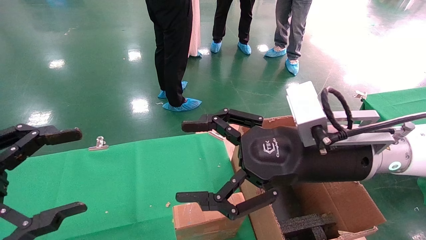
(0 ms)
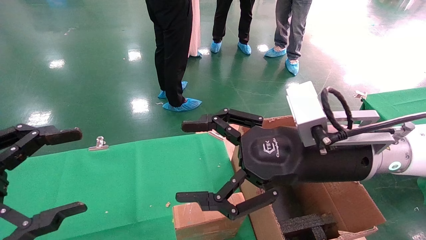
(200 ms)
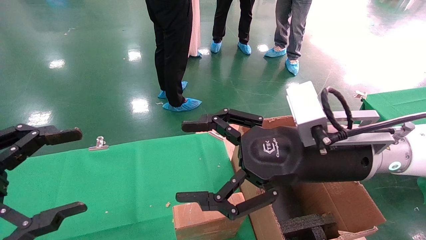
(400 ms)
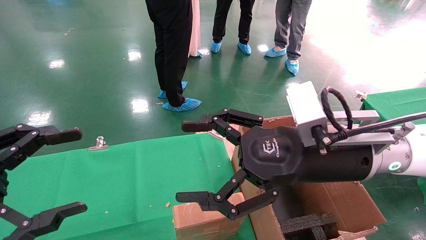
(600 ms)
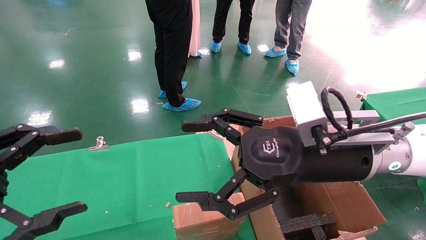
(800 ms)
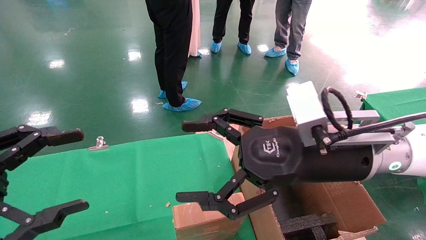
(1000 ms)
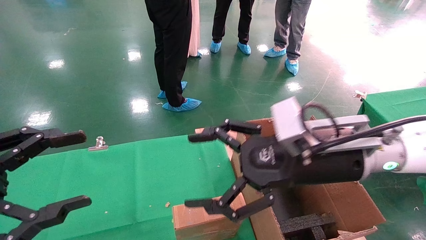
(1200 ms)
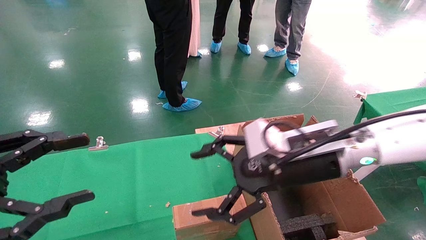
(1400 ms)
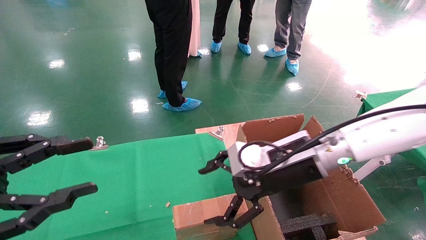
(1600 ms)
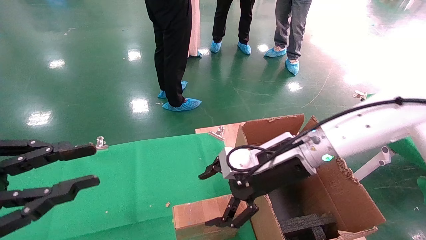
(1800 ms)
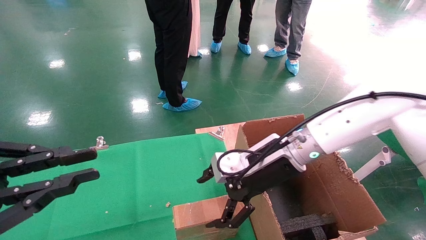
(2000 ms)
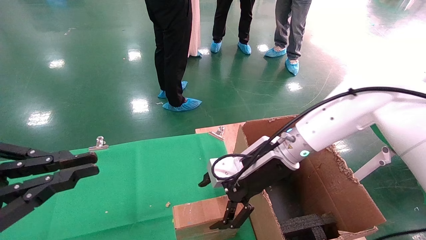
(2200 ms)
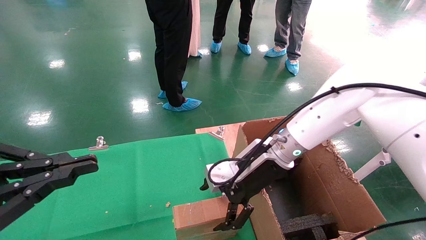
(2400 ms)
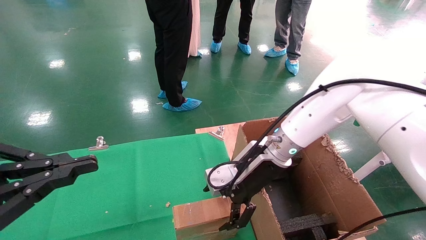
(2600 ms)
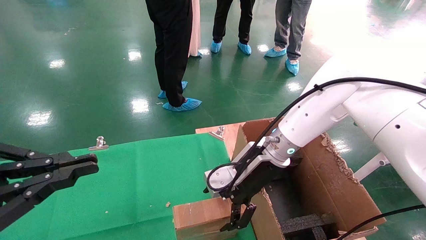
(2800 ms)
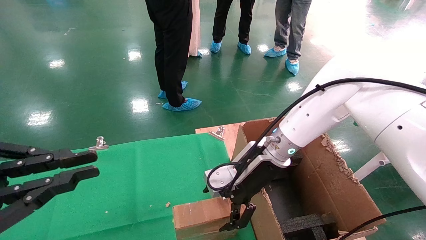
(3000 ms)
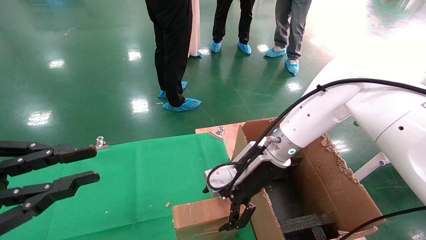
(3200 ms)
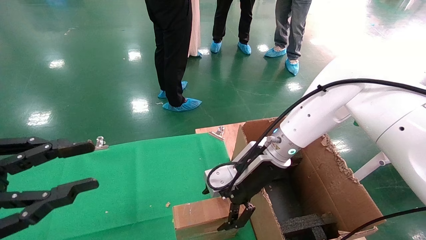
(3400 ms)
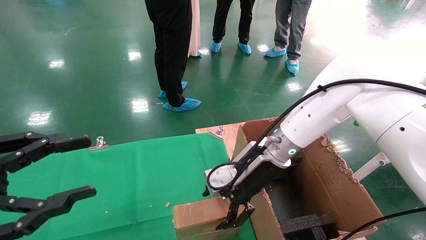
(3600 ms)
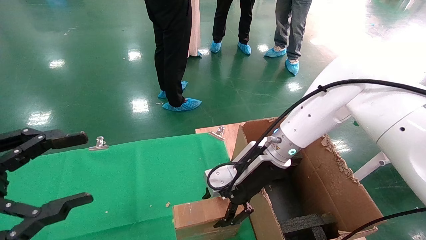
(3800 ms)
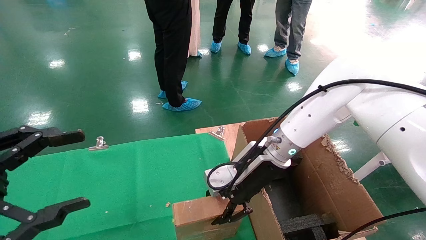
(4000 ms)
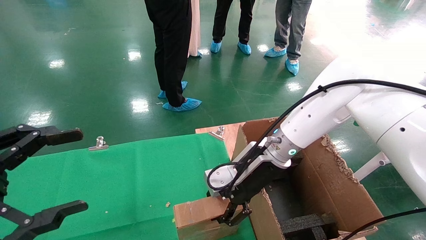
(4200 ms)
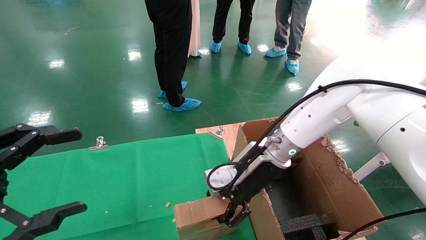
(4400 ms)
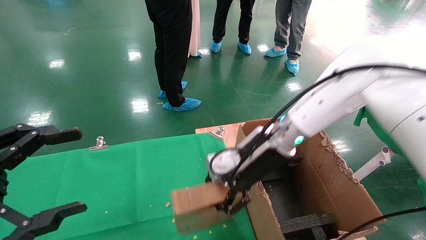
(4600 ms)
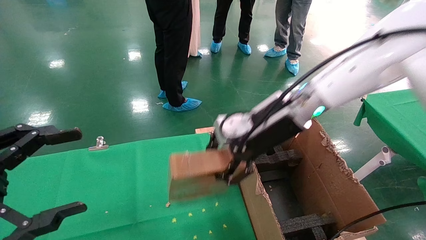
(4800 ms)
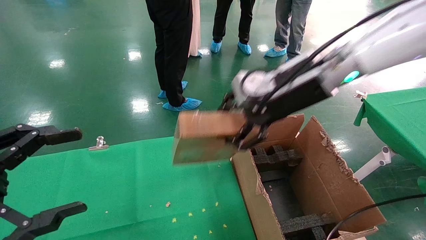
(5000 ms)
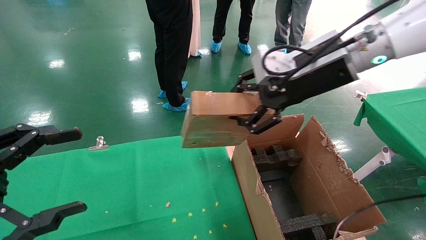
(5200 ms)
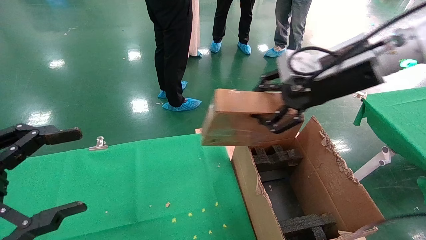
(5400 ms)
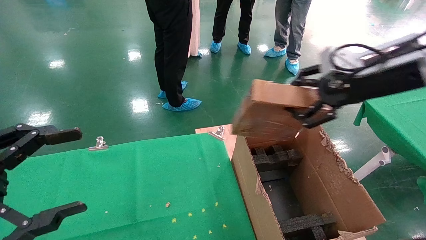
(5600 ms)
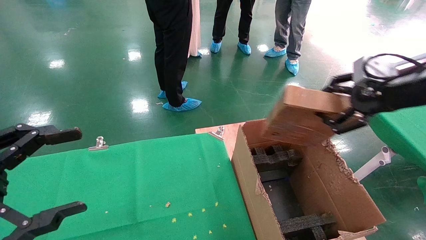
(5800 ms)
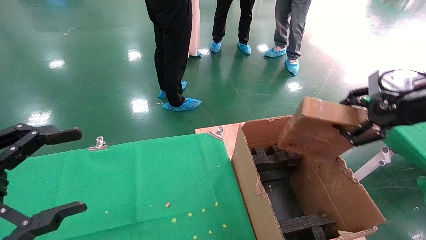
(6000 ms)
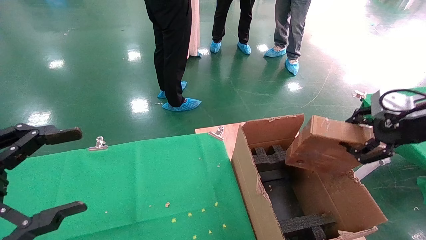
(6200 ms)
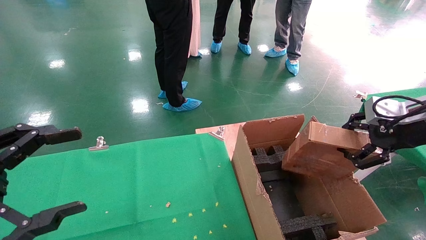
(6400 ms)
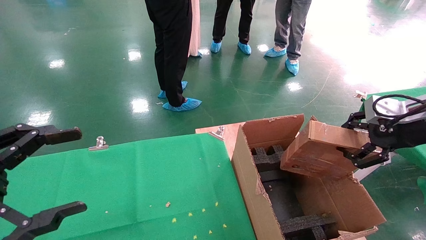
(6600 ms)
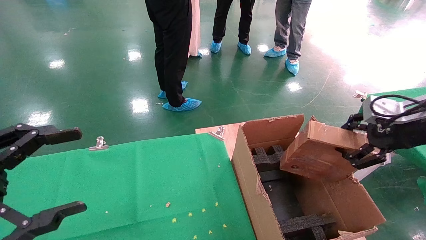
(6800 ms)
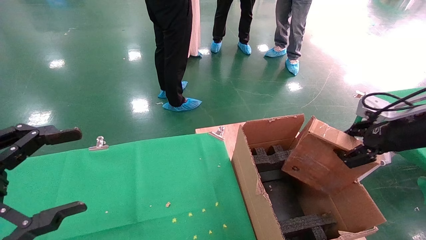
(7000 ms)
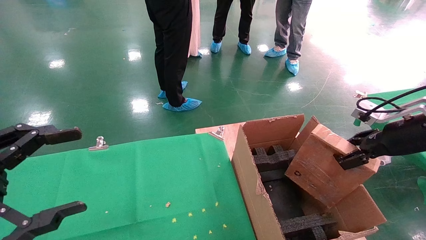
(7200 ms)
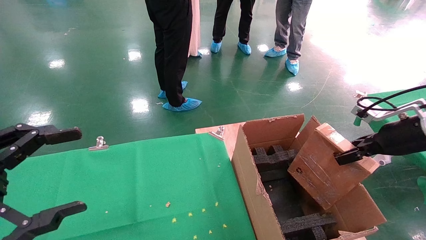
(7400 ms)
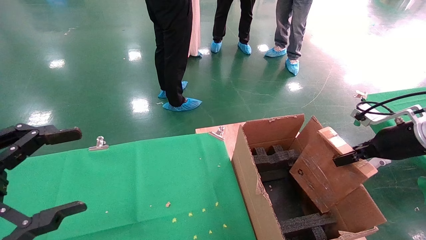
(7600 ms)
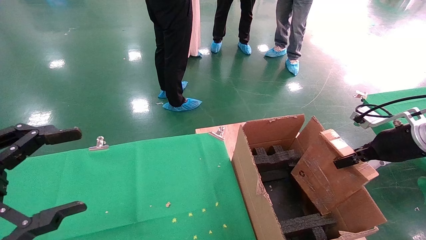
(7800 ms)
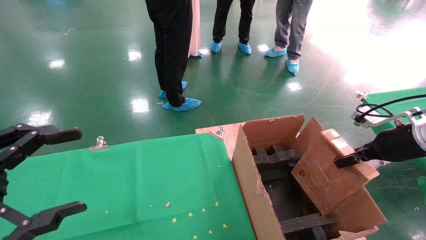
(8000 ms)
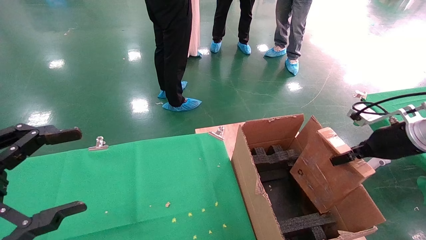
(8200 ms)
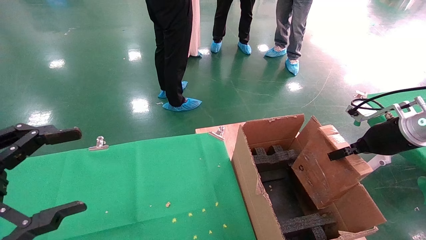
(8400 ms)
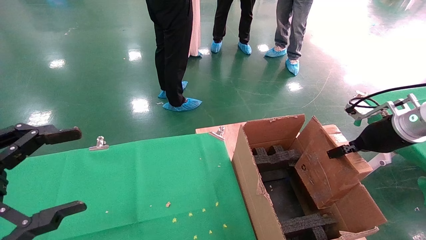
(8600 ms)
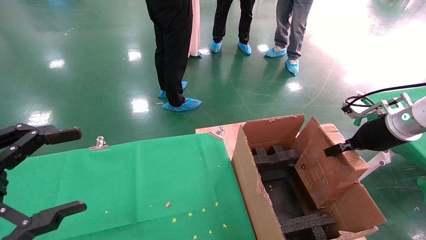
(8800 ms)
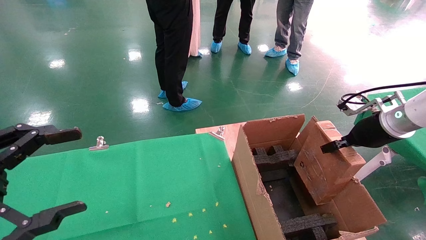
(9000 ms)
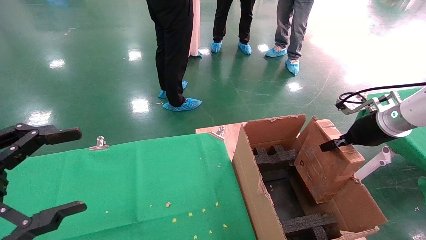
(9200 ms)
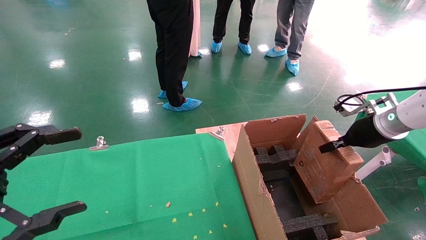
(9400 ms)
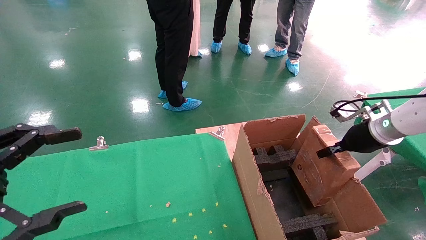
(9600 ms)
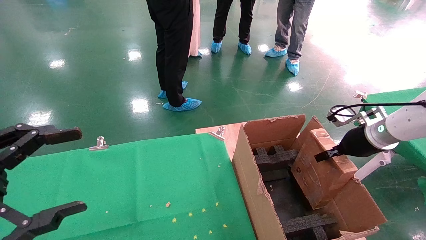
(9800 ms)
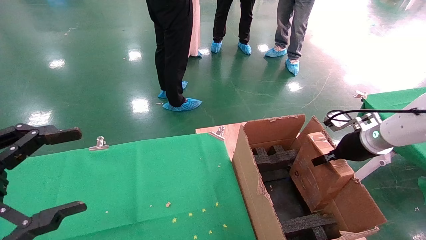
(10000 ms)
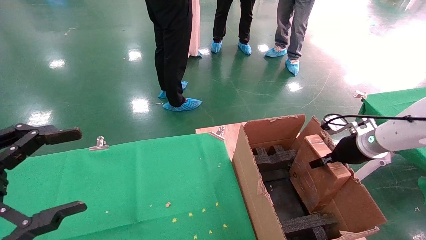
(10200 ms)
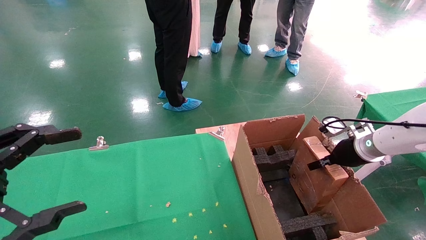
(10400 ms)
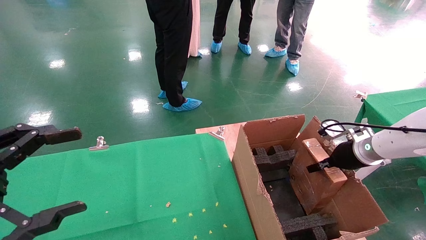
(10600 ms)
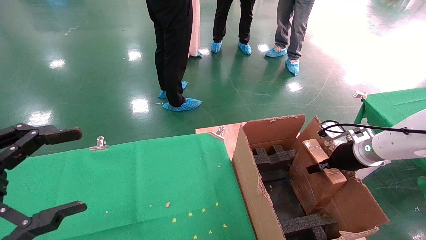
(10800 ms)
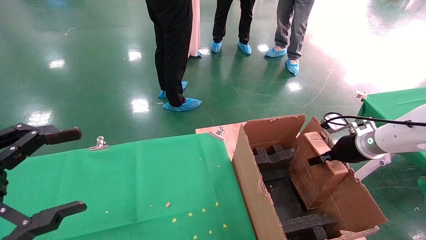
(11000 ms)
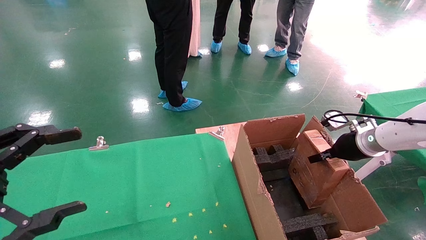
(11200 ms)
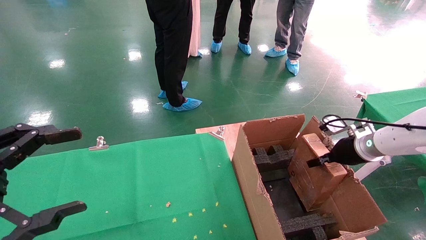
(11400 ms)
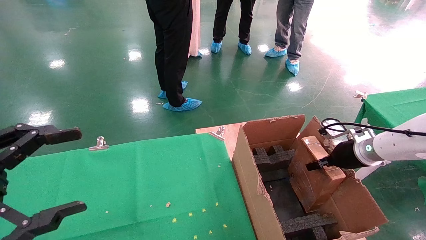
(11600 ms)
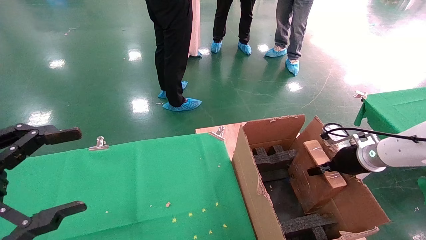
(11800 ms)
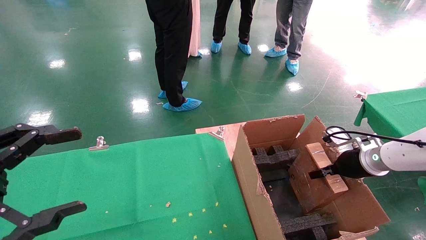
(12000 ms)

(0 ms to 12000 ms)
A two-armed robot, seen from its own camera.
Task of the whole recording: using a robotic arm to pick up a cardboard box and palace it the carton.
Step, 1600 ms - 4000 ms: Pick up the mouse and the power cord paper box.
0 ms - 1600 ms: The left gripper closes; the right gripper shifts some 5 cm forward.
1600 ms - 3000 ms: The right gripper moves forward, about 5 cm. The left gripper closes up.
3000 ms - 4400 ms: The right gripper closes its fingers; the left gripper opens.
4400 ms - 6000 ms: The right gripper moves to the right and upward, roughly 30 cm.
6000 ms - 7600 ms: The right gripper is displaced downward by some 10 cm.
7600 ms - 9000 ms: The right gripper travels forward by about 5 cm.
9000 ms - 10400 ms: The right gripper travels downward by some 5 cm.
10400 ms - 12000 ms: The grippers stay close to where they were, moving slightly.

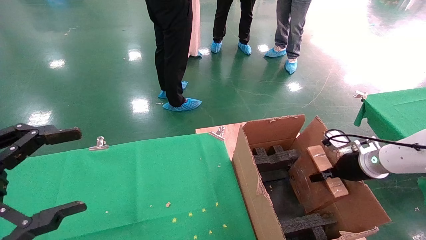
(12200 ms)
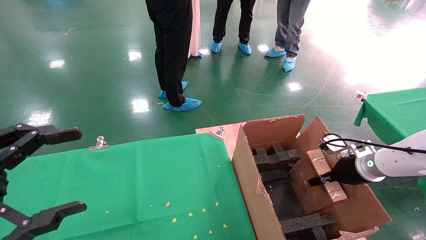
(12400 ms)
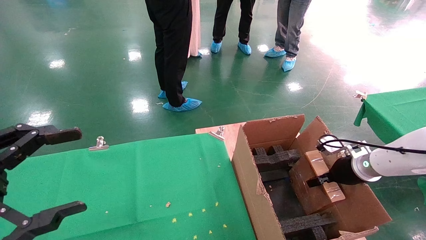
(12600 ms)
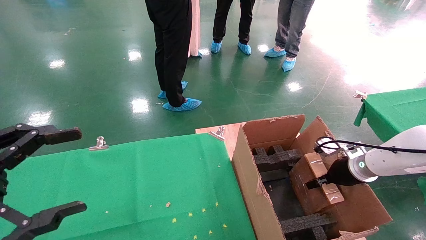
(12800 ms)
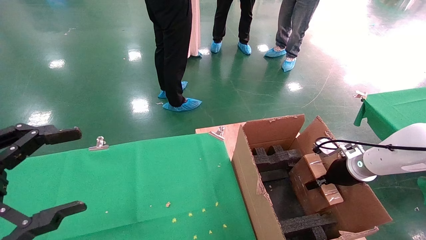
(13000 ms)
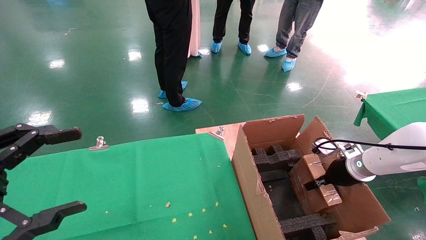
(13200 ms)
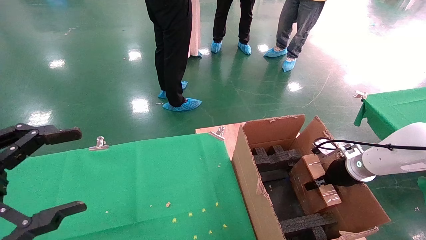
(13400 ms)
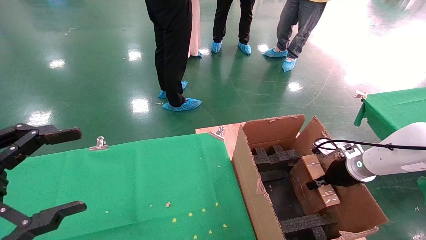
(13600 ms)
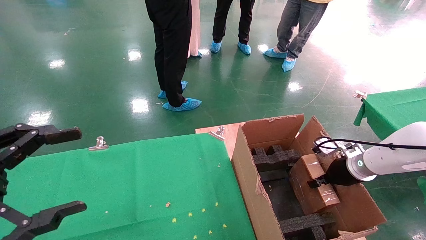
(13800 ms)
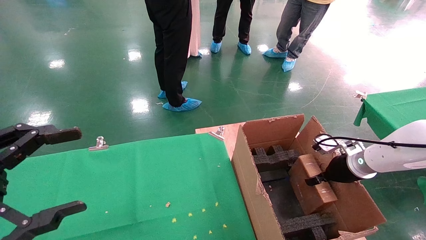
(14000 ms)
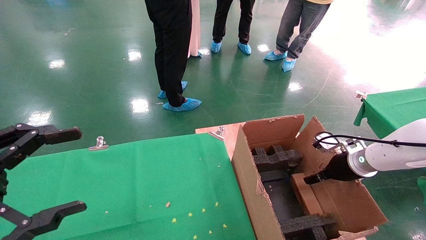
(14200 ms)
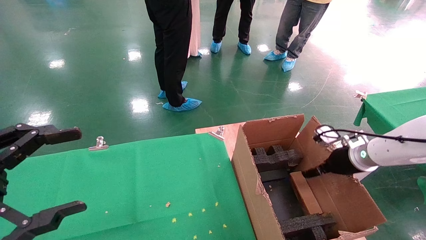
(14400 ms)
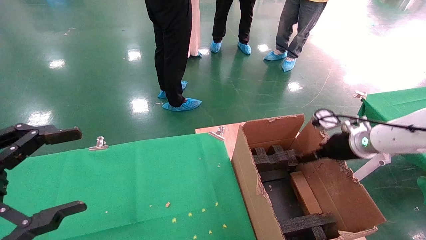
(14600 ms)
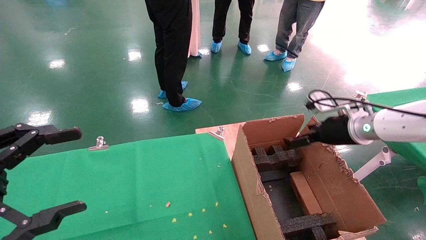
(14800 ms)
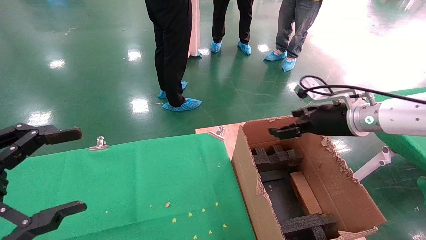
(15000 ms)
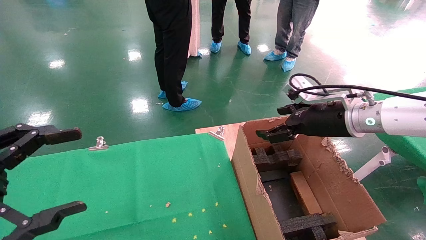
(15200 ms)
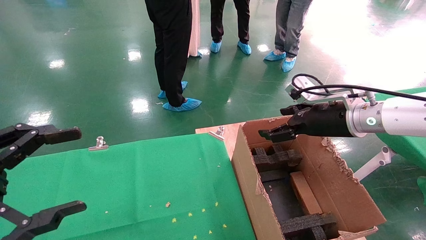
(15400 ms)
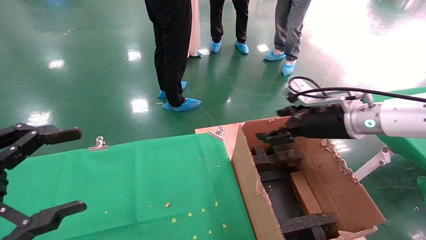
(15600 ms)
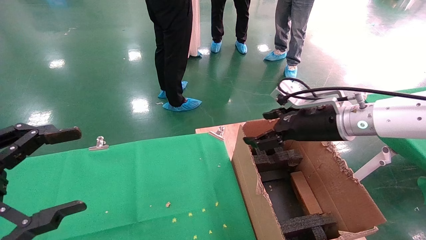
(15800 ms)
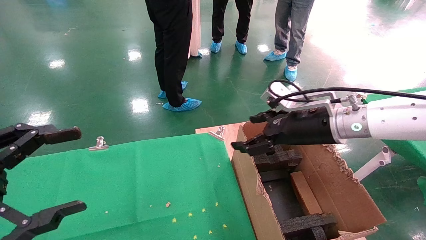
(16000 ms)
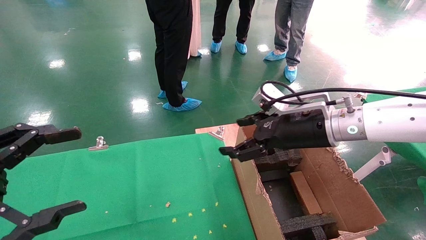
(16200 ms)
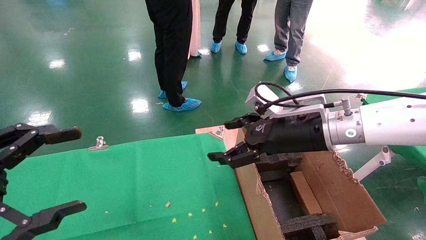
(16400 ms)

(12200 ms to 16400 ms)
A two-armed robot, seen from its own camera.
Task of the whole recording: using a robotic arm to pick up a cardboard box and palace it the carton.
Step, 12200 ms - 15000 ms: Place the mouse and the power cord paper box into the container.
12200 ms - 13600 ms: There are only small adjustments of the grippers.
13600 ms - 15000 ms: The right gripper moves upward and to the left, about 15 cm, and opens up.
15000 ms - 16400 ms: The right gripper is displaced to the left by about 10 cm.
